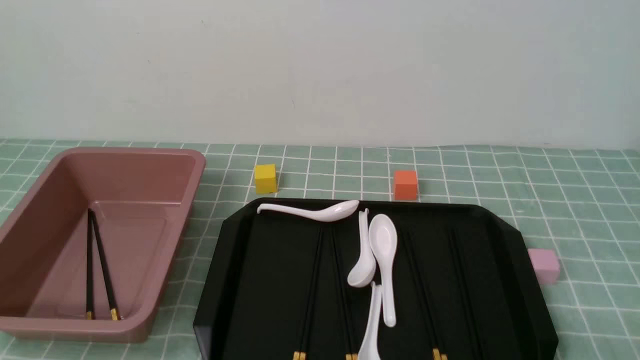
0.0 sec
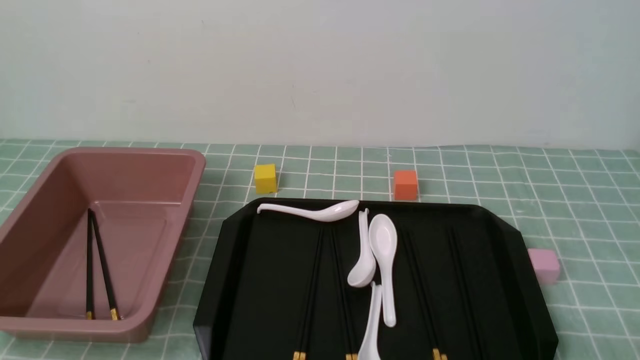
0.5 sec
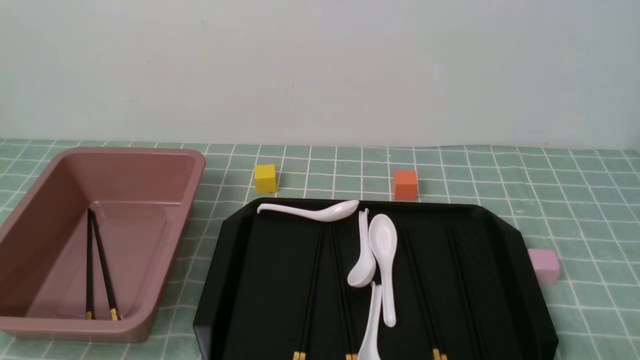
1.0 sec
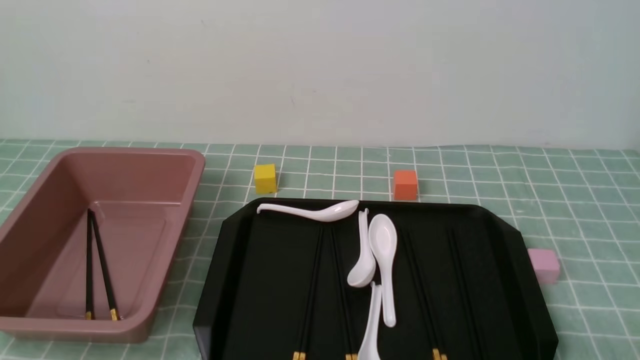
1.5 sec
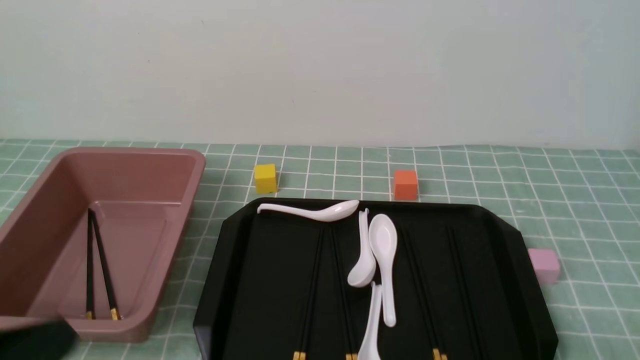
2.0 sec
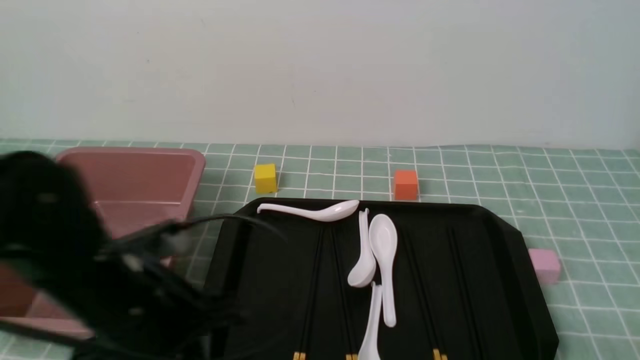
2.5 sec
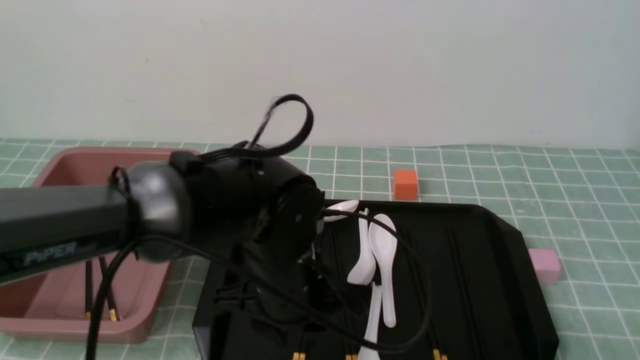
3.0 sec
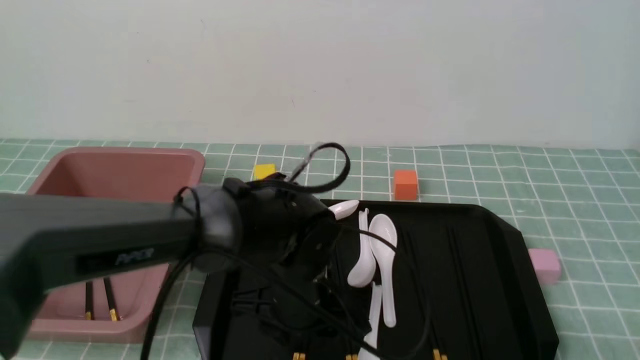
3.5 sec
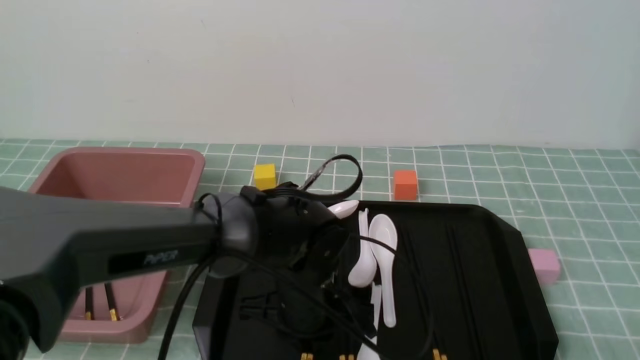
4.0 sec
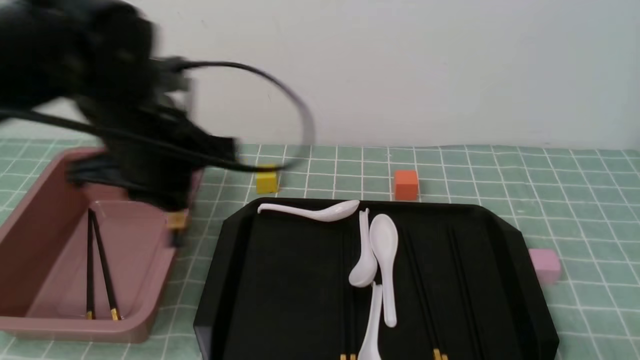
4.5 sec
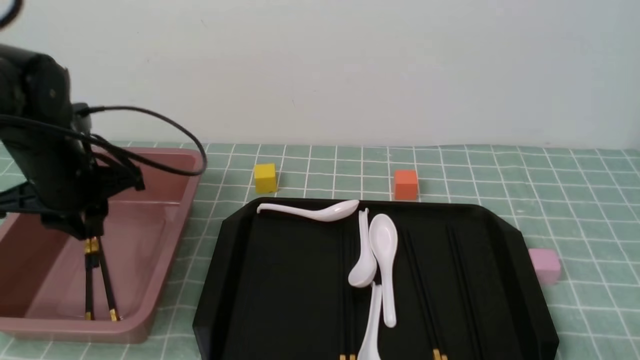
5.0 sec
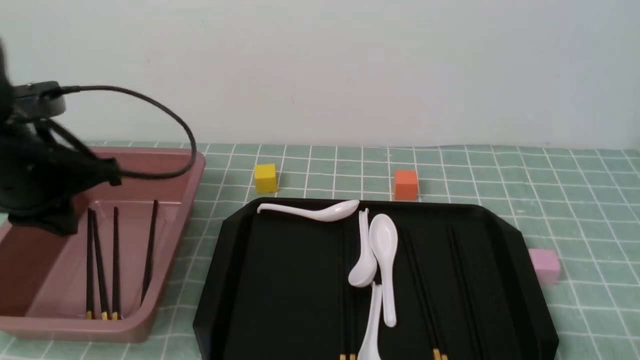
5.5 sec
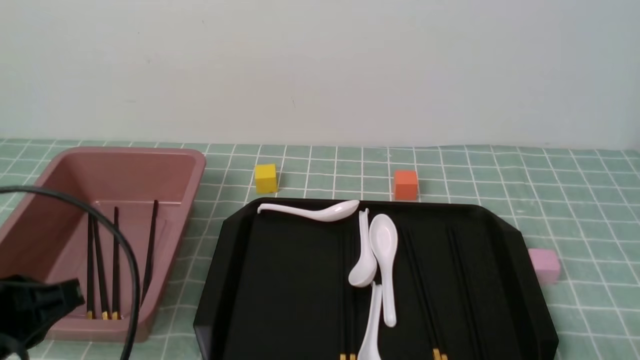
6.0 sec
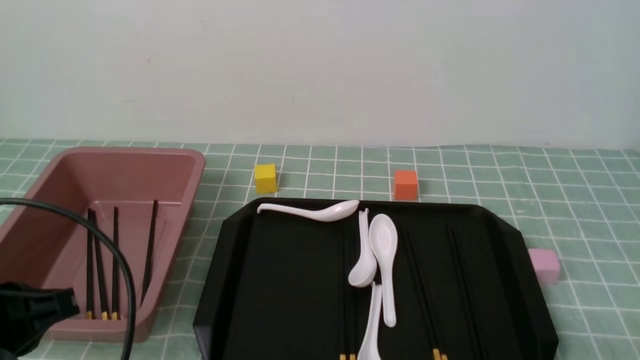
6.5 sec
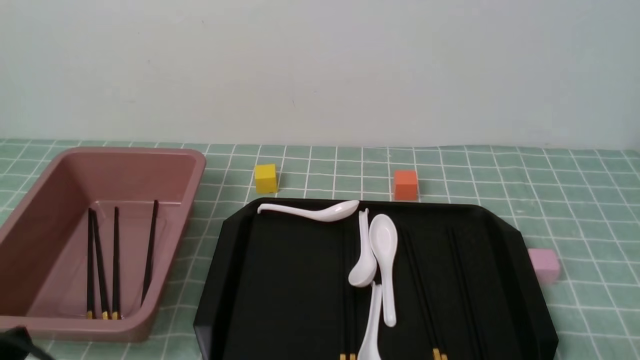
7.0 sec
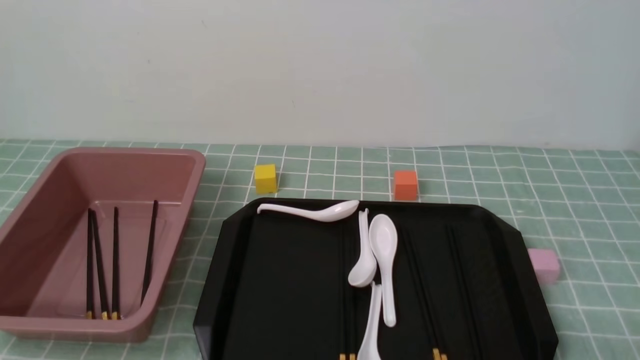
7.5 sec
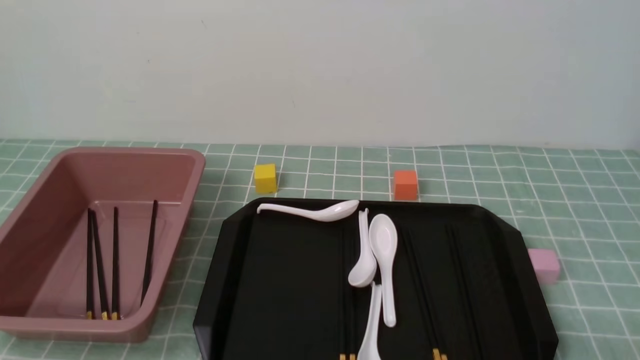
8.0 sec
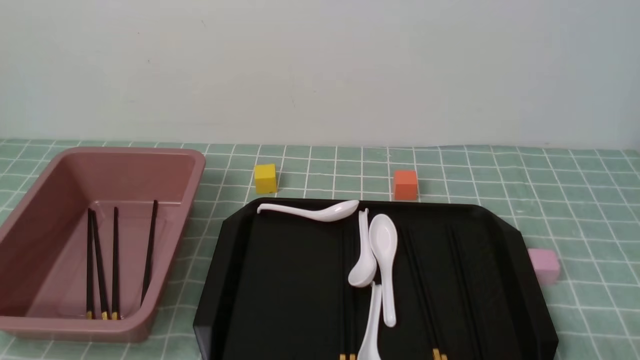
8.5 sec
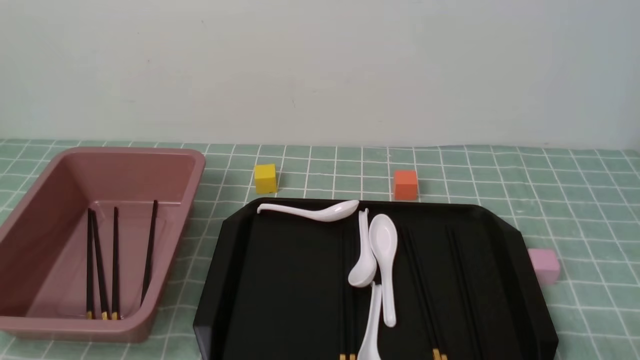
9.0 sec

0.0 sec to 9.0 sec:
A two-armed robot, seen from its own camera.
Step, 0.0 sec to 4.0 sec: use the left arm to grab a pair of chopsticks.
Step, 4.5 sec to 5.0 sec: use the left arm to put the chopsticks into the lunch box.
0.0 sec to 2.0 sec: The left gripper heads upward, covering roughly 10 cm.
2.0 sec to 4.5 sec: The left gripper travels forward by some 25 cm, and opens its fingers.
4.5 sec to 7.0 sec: The left gripper travels backward and to the left by about 25 cm, and closes its fingers.
